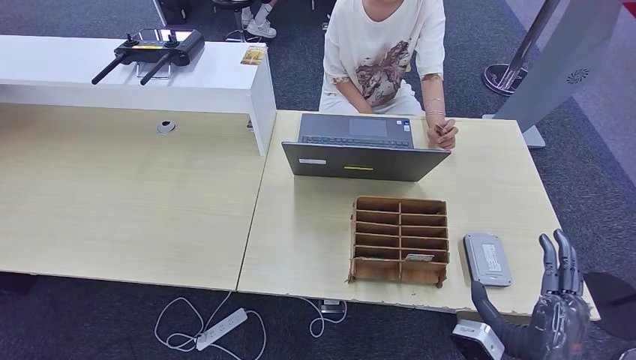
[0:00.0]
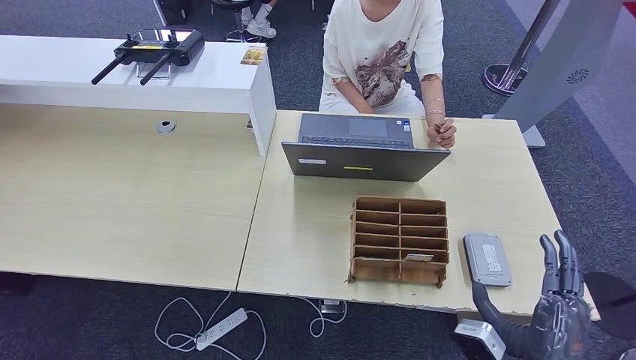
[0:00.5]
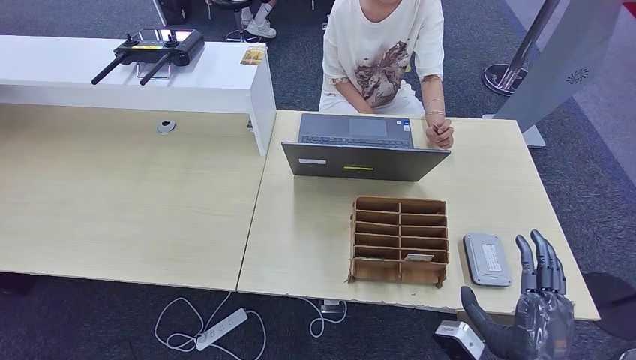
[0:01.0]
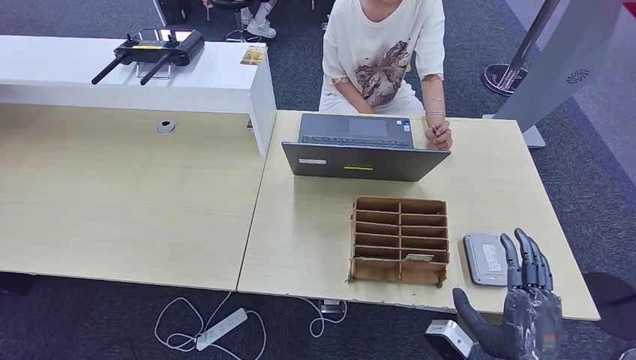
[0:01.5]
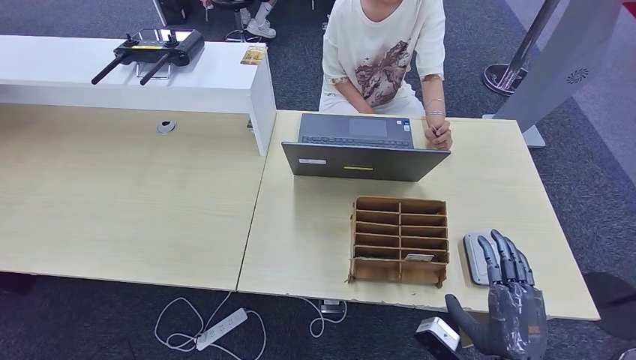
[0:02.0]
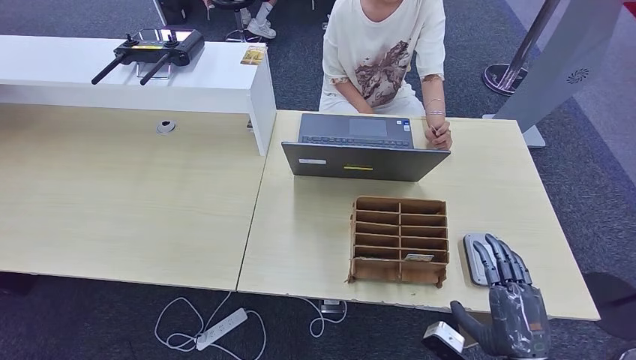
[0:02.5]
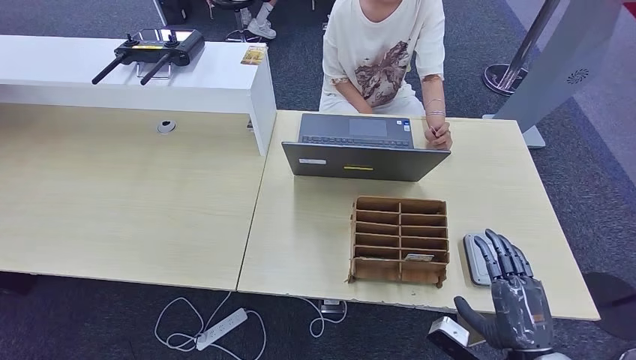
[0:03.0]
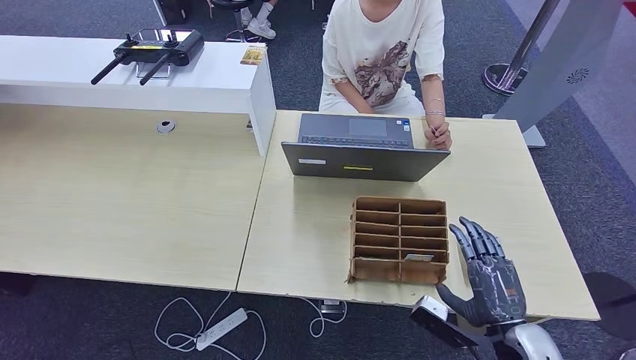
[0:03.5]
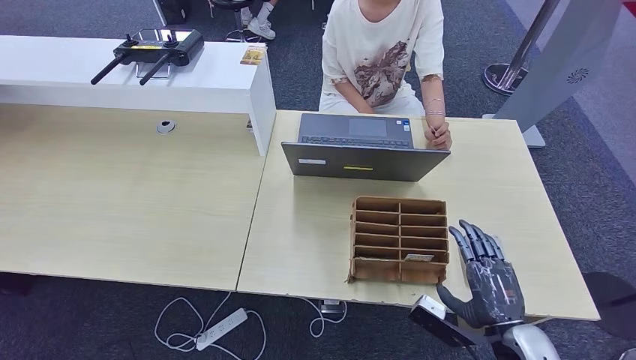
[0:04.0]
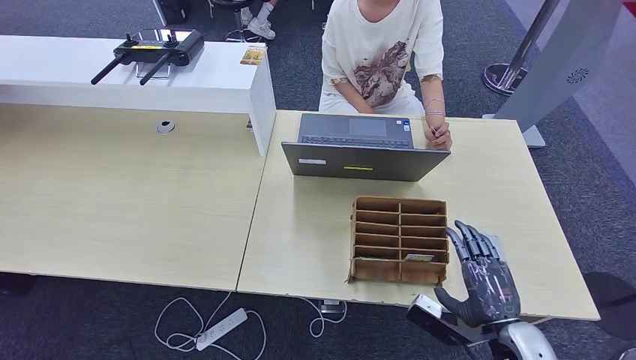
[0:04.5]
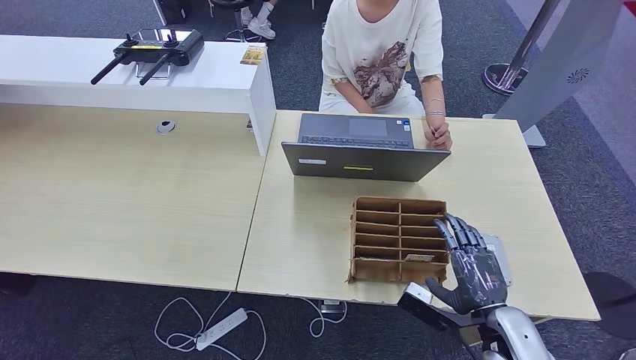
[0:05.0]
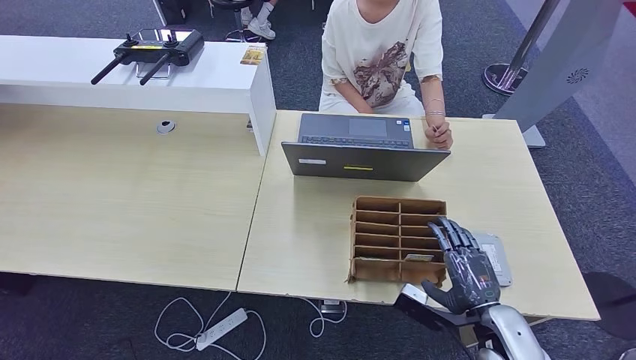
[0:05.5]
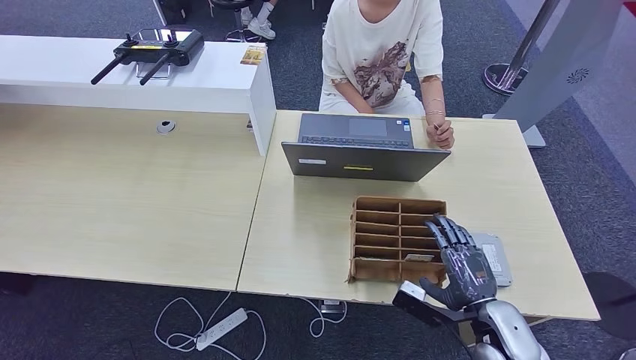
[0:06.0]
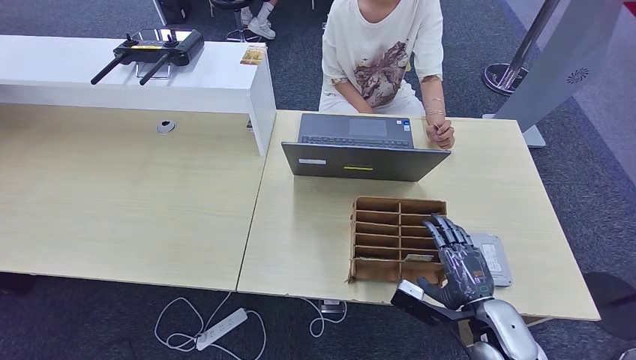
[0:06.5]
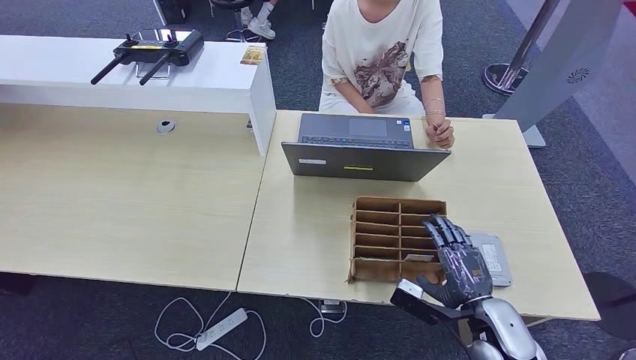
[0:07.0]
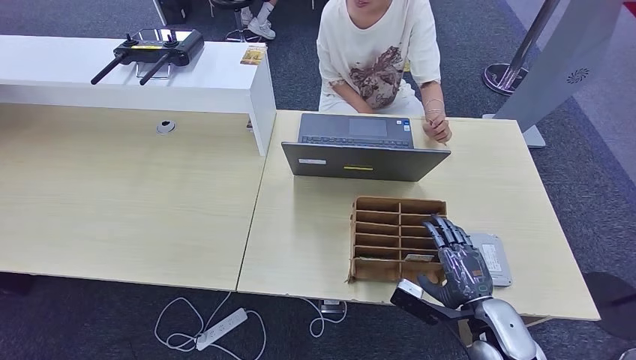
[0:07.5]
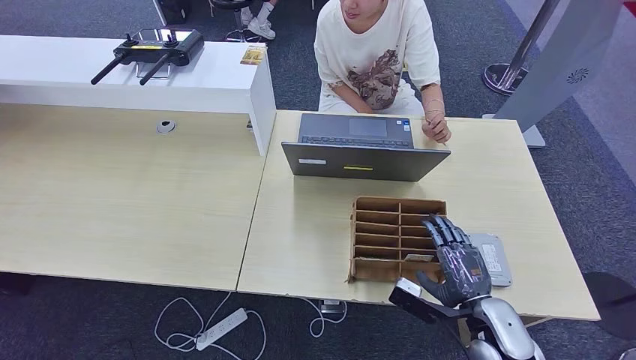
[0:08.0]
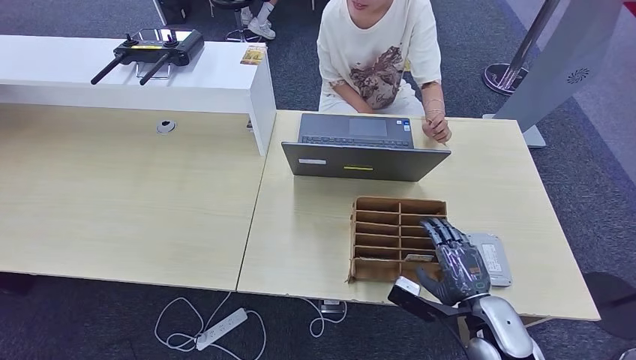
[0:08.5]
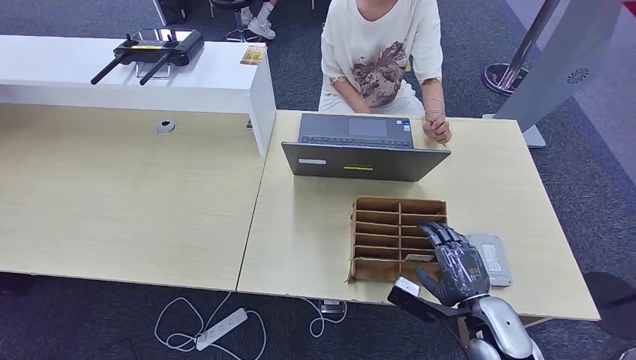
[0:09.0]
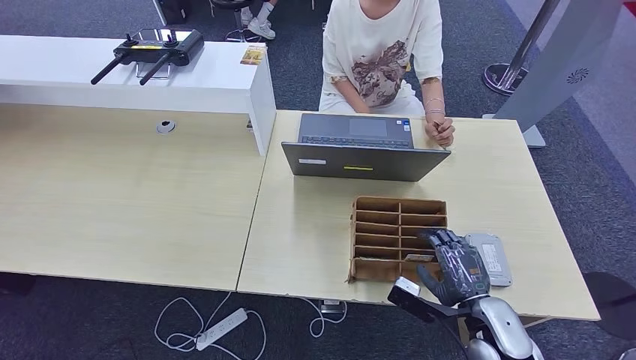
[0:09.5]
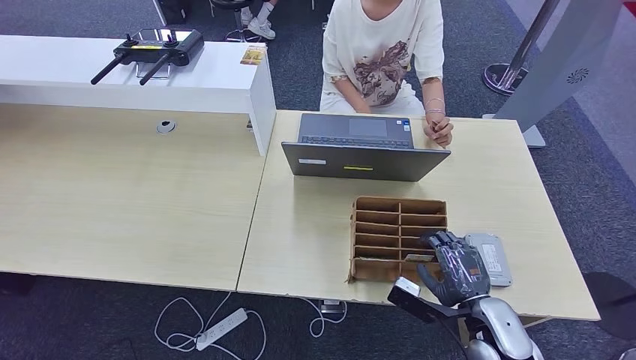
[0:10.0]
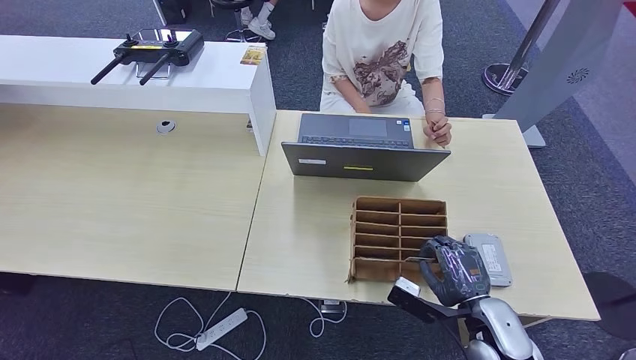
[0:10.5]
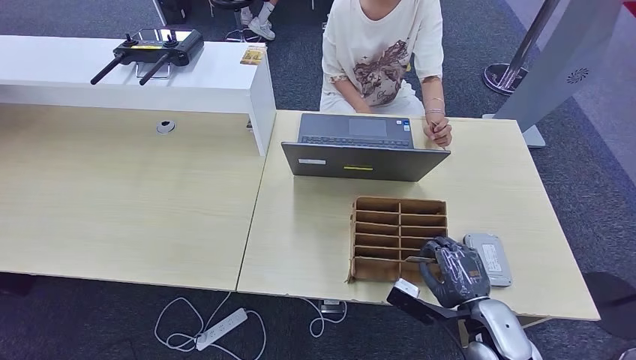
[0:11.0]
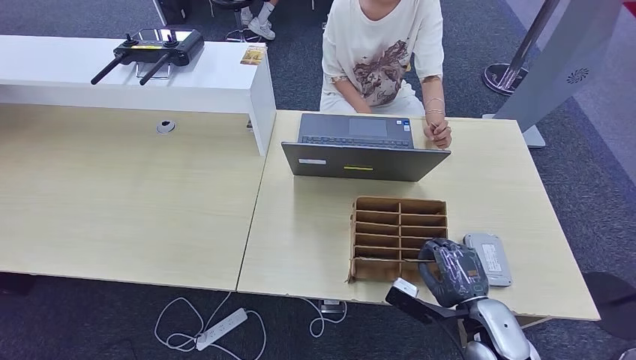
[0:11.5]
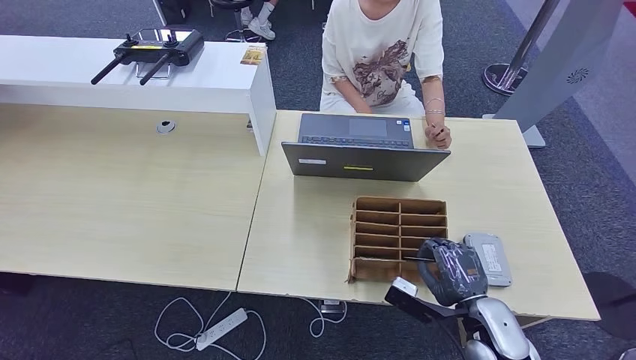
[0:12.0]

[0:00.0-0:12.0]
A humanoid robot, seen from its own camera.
0:00.0 to 0:02.0: There are only small adjustments of the hands.
0:02.0 to 0:04.0: The right hand travels forward by some 5 cm.
0:04.0 to 0:06.0: There are only small adjustments of the hands.
0:06.0 to 0:12.0: Both hands stay put.

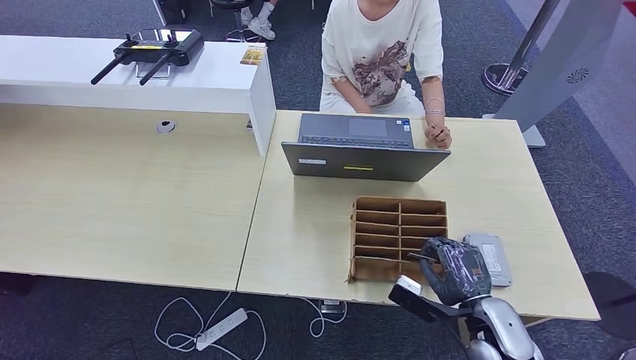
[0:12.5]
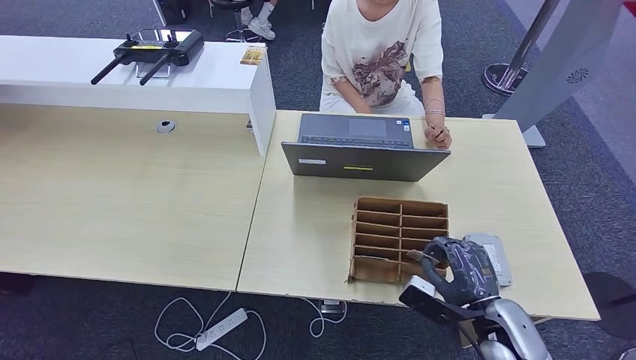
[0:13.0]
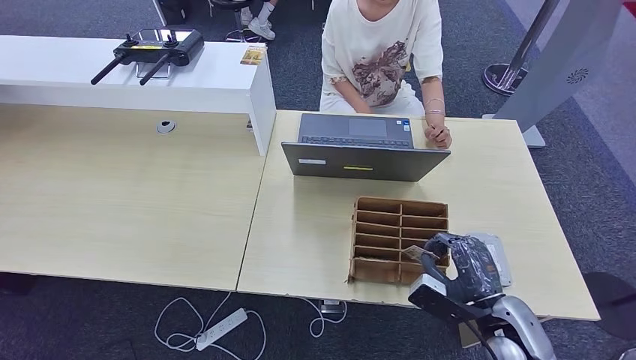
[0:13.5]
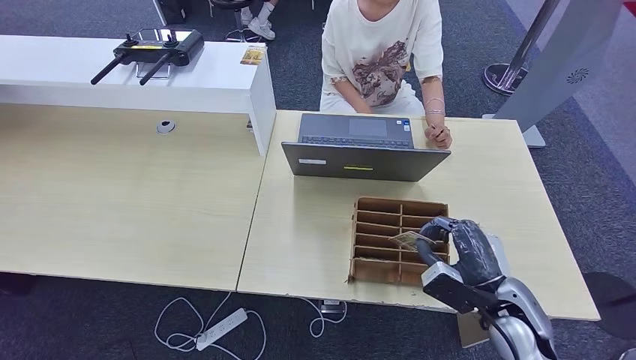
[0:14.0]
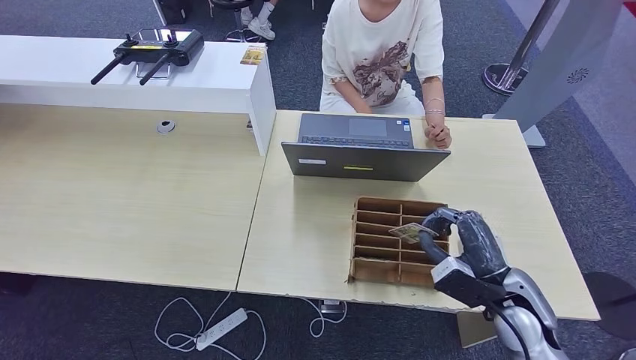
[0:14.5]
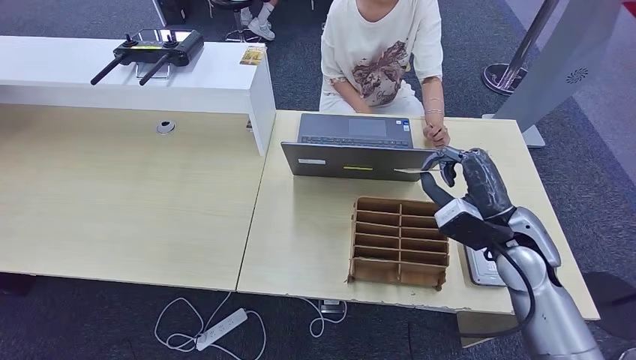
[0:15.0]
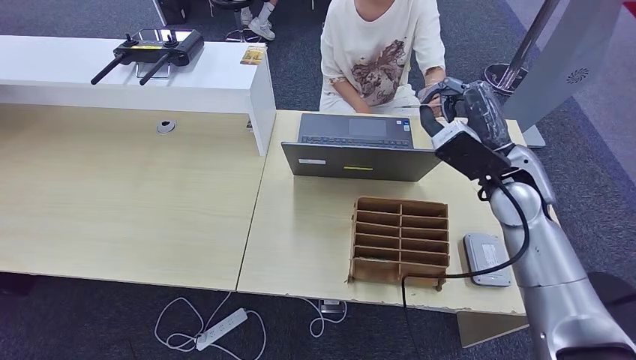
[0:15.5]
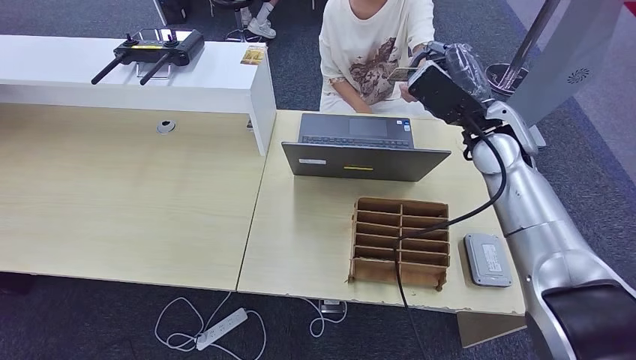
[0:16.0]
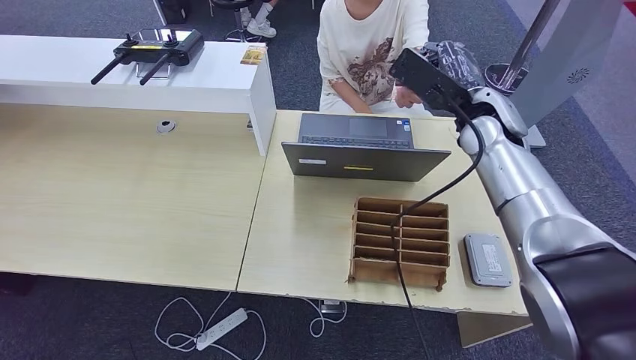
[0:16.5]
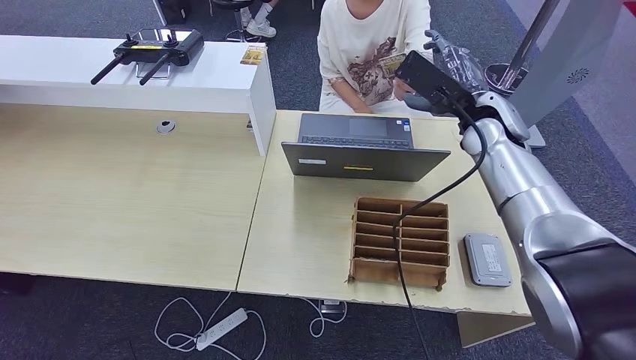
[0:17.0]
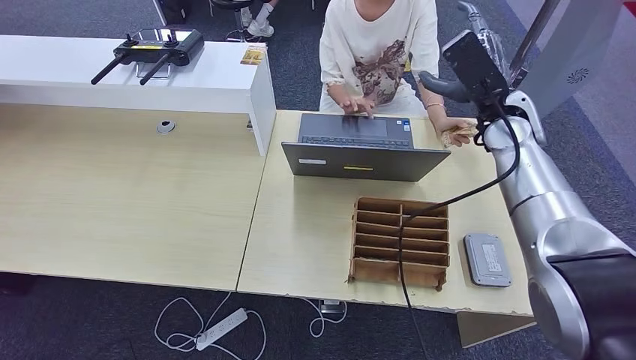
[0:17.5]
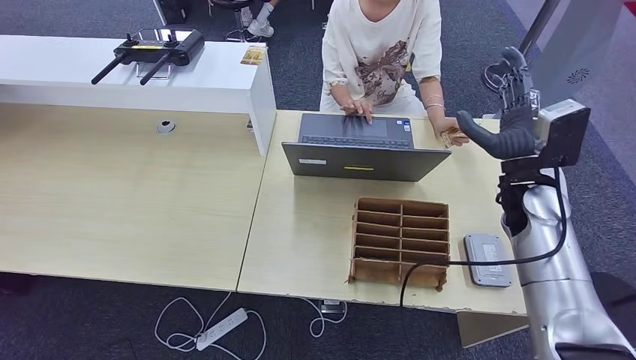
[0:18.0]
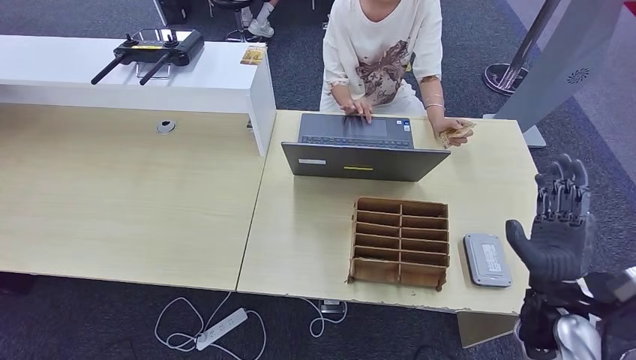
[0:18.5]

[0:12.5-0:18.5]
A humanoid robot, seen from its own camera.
Step, 0:12.5 to 0:15.5: Pick up the room key from the key card box.
Step, 0:16.0 to 0:18.5: Hand the room key to the person.
0:12.5 to 0:14.5: The right hand travels upward by some 5 cm.
0:14.5 to 0:16.5: The right hand goes approximately 30 cm forward and upward.
0:16.5 to 0:18.5: The right hand moves backward and downward, roughly 30 cm.

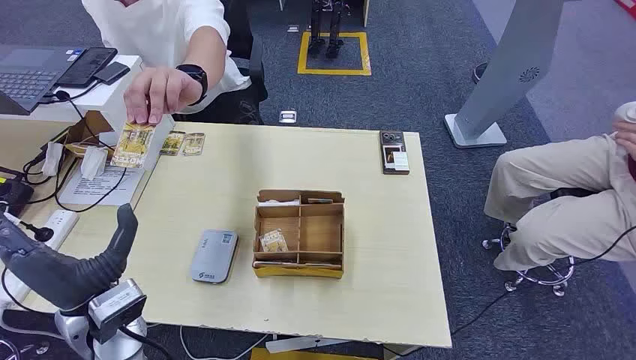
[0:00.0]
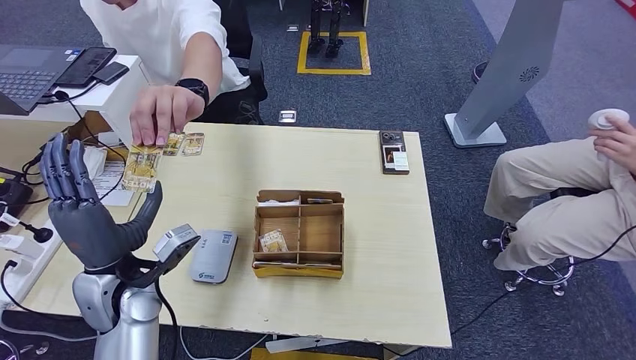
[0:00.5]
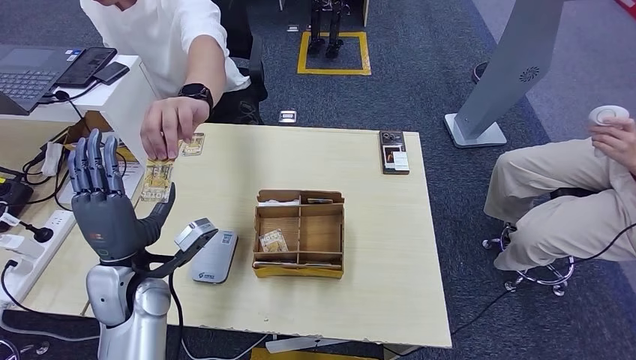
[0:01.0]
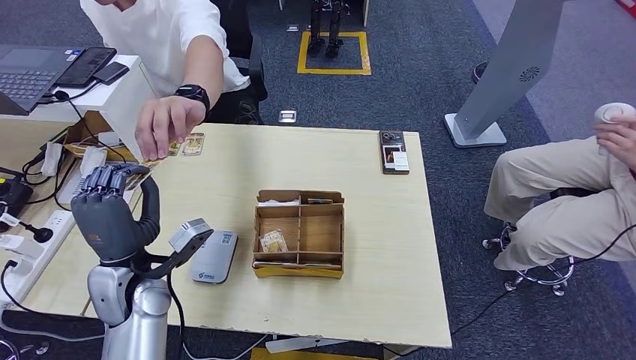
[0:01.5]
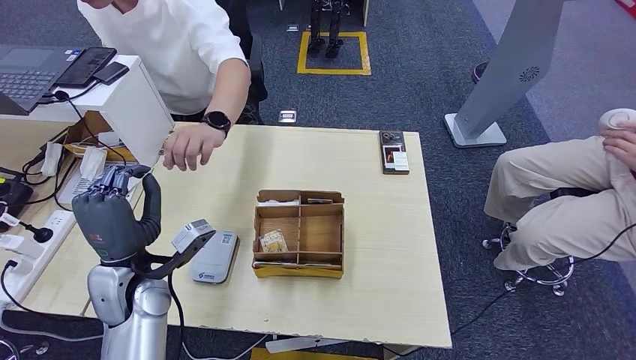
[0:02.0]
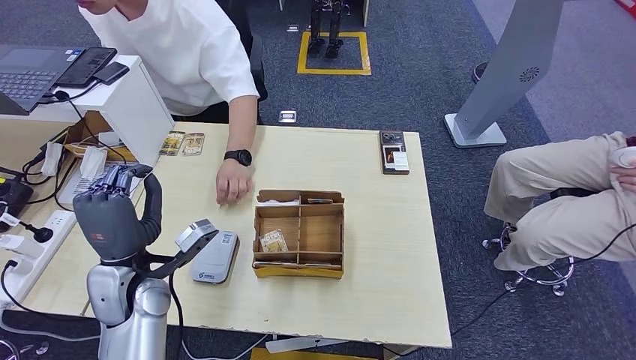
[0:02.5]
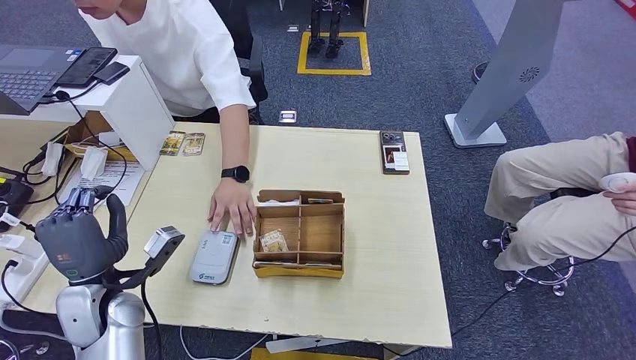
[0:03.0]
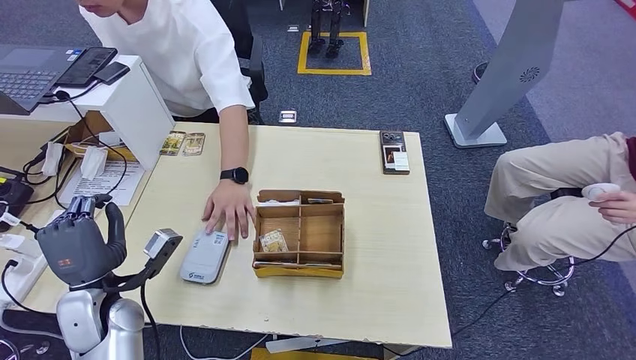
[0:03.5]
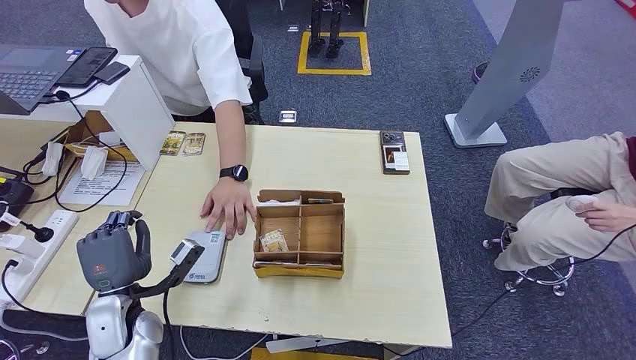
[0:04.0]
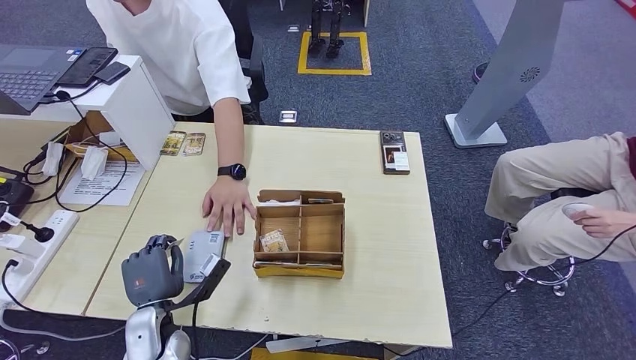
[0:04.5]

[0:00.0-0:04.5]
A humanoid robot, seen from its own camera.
Step, 0:00.0 to 0:02.0: Take the ID card from the person's hand.
0:02.0 to 0:04.5: The left hand heads downward, covering some 15 cm.
